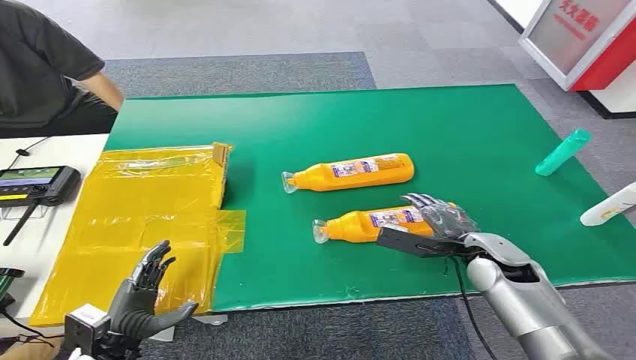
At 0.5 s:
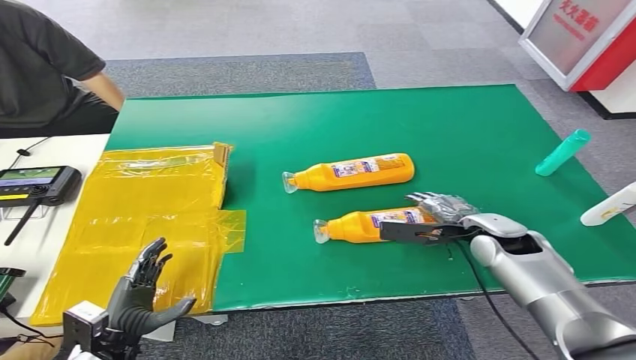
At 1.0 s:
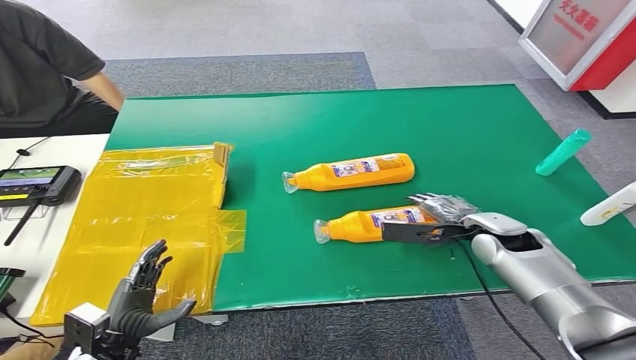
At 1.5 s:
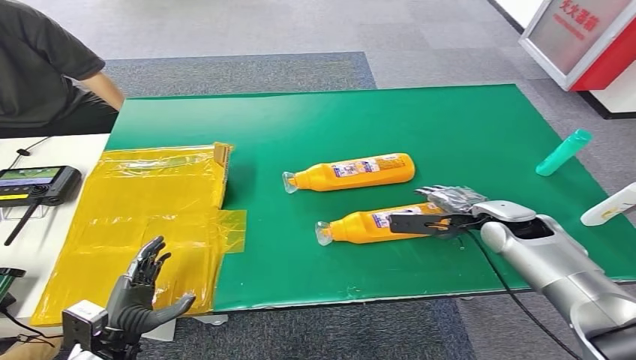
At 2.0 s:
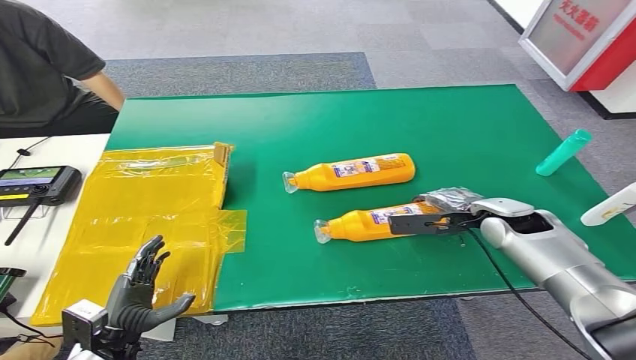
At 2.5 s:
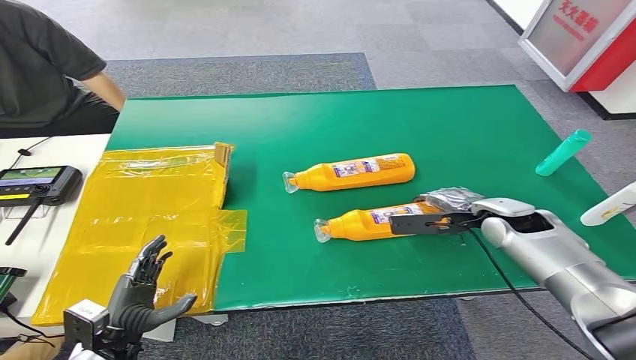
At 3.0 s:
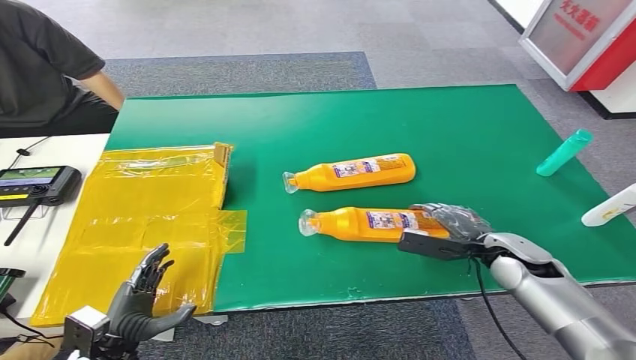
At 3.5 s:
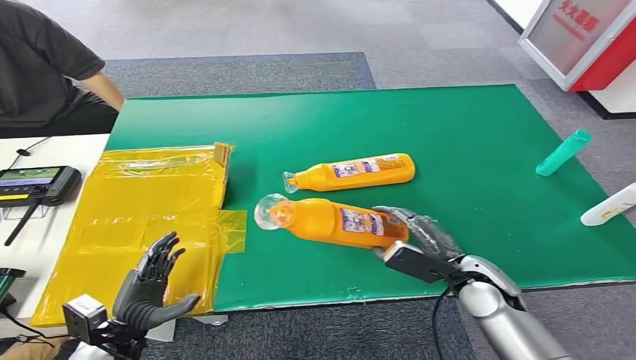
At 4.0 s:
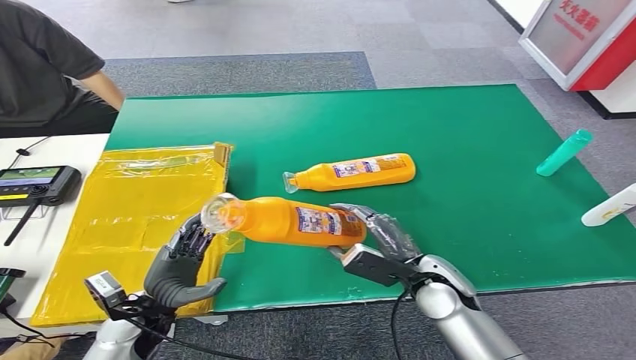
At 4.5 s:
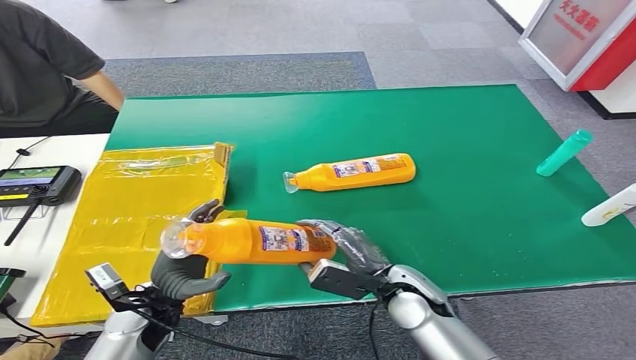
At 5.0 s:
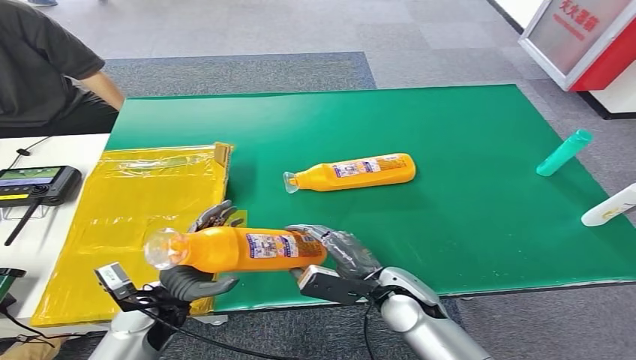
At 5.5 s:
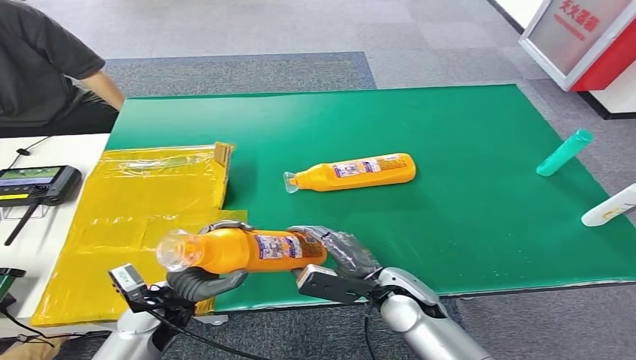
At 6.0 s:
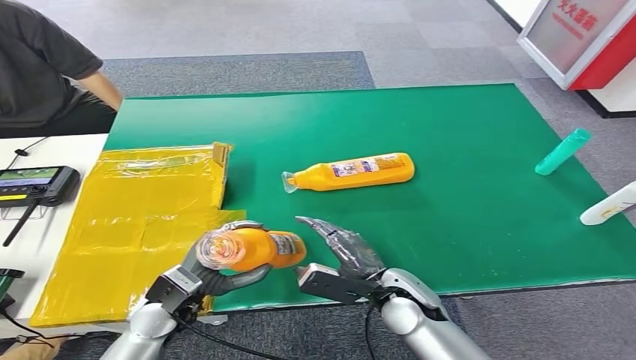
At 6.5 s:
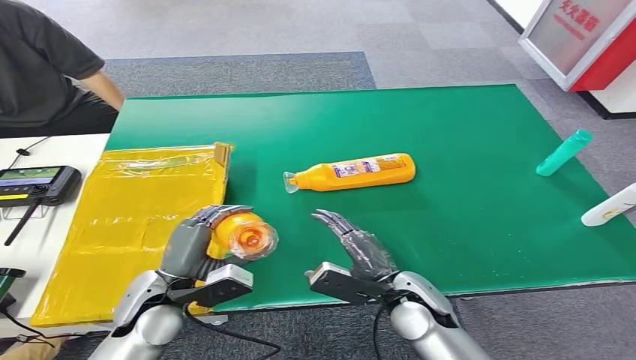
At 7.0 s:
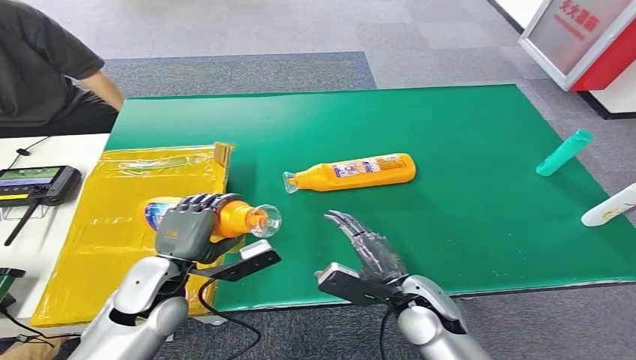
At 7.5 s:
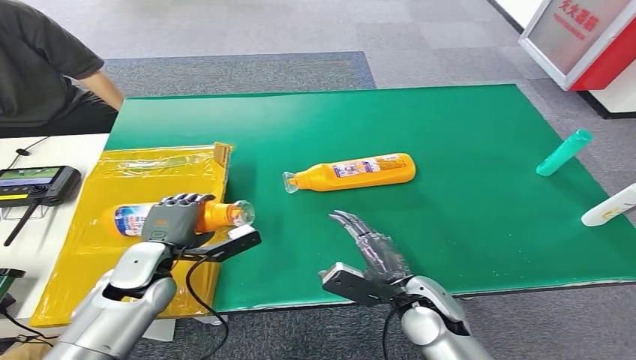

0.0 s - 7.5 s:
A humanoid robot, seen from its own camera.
Step, 0.0 s - 3.5 s: Pick up the bottle from the table.
Step, 5.5 s - 7.0 s: Turn the bottle to the front side.
2.0 s - 4.0 s: The right hand goes about 20 cm to the left and backward; the left hand travels forward by roughly 5 cm.
4.0 s - 5.5 s: The right hand moves roughly 5 cm.
5.5 s - 7.5 s: The left hand heads forward, covering approximately 5 cm.

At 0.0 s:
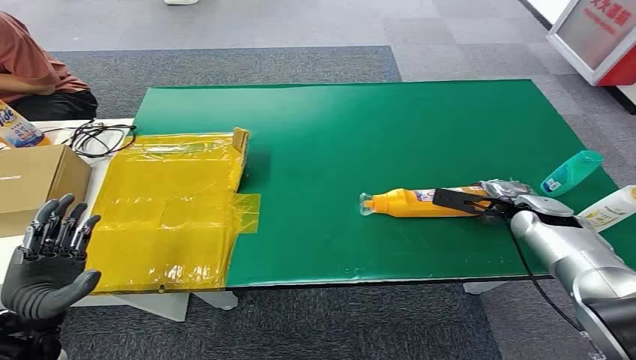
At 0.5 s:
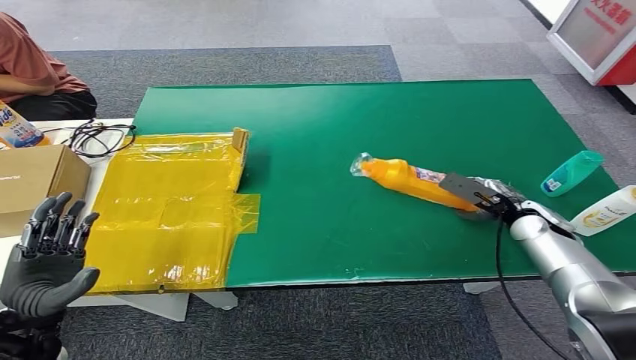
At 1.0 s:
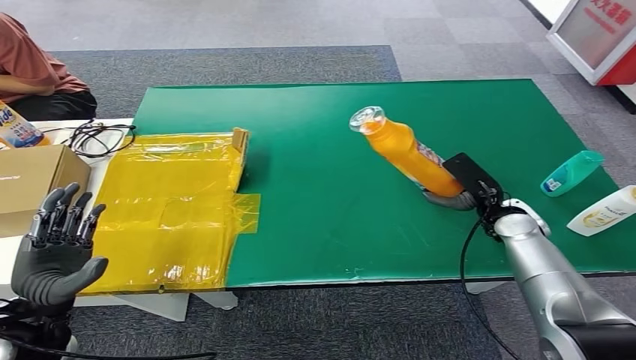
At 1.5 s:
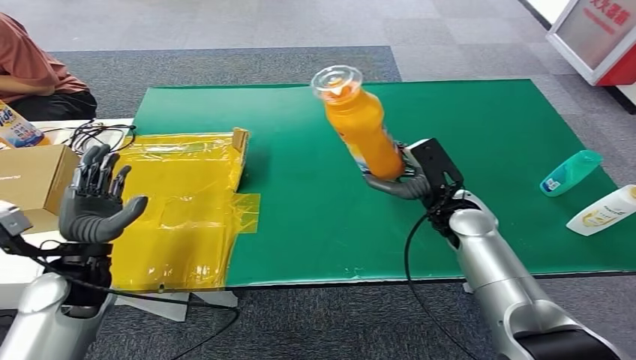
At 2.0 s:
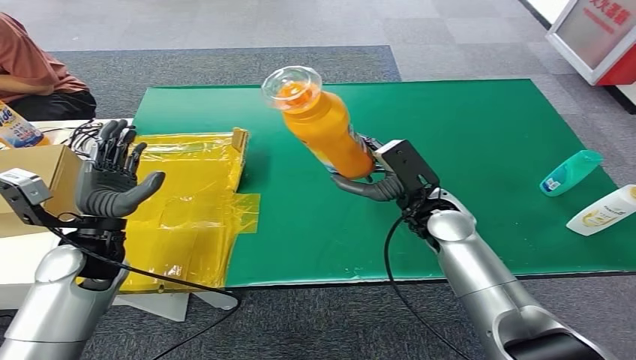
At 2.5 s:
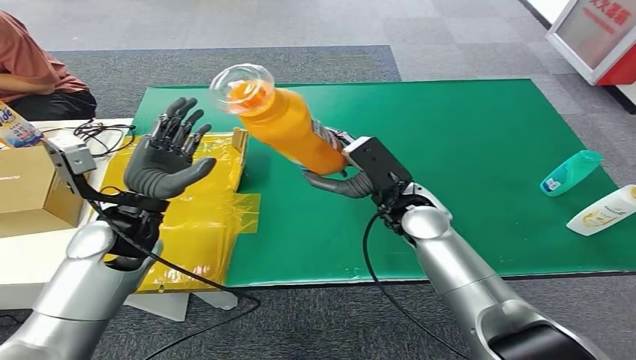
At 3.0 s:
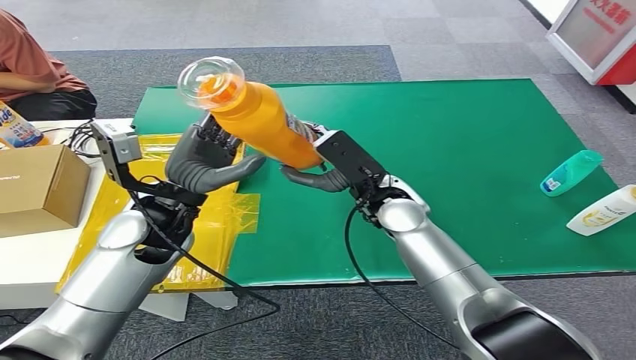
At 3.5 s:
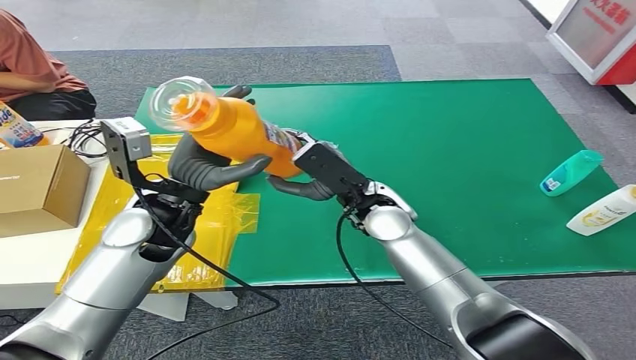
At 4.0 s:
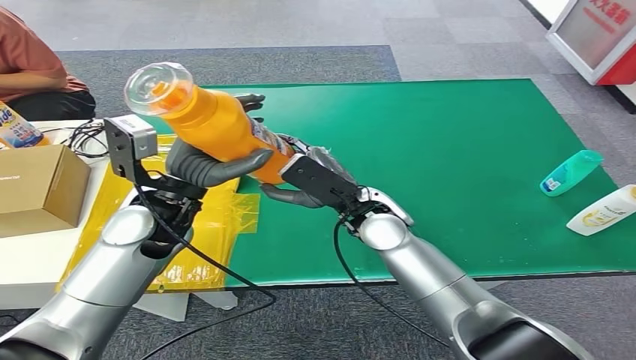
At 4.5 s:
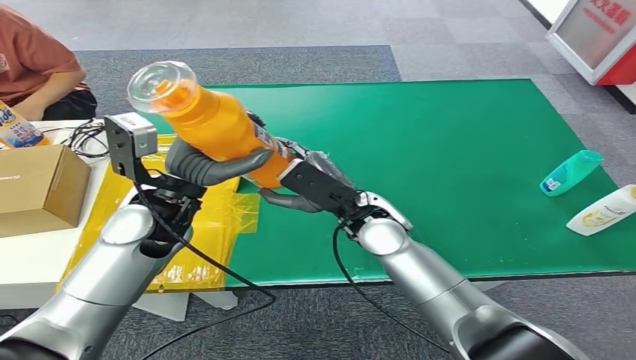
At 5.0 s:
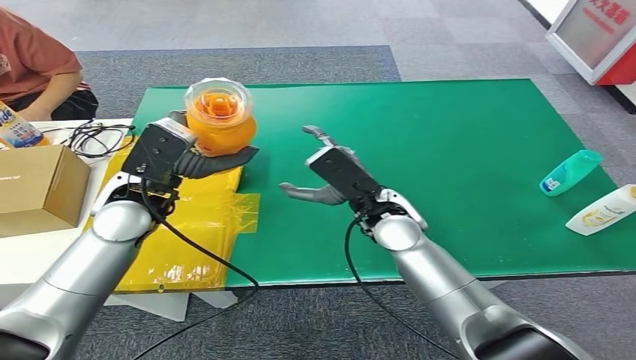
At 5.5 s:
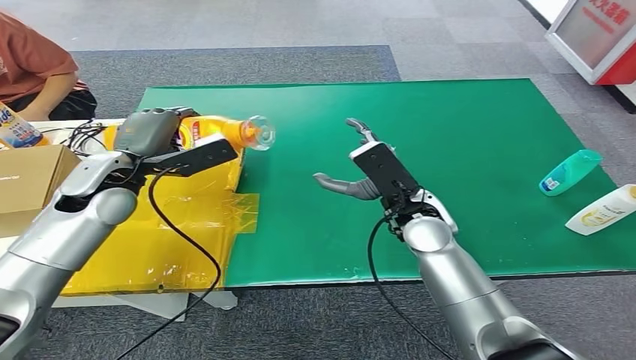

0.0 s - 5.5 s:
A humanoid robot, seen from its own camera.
Step, 0.0 s - 1.5 s: Pick up the bottle from the table.
Step, 2.0 s - 5.5 s: Turn the bottle to the front side.

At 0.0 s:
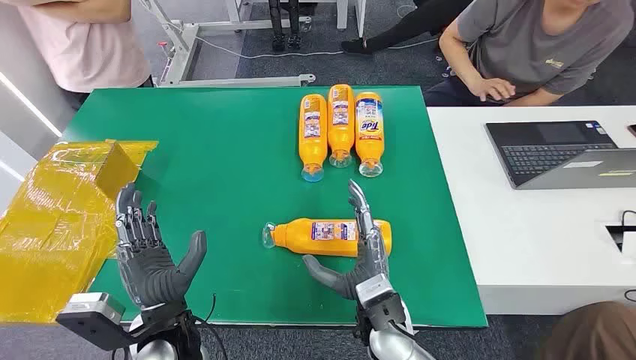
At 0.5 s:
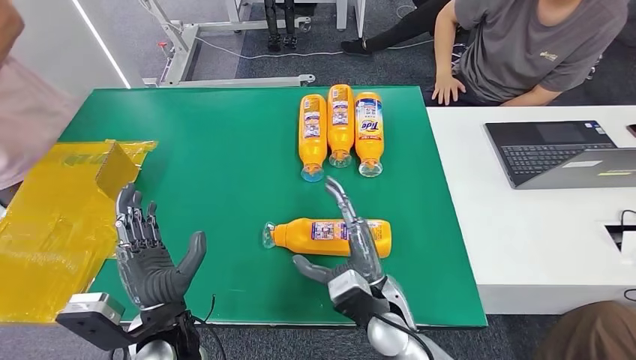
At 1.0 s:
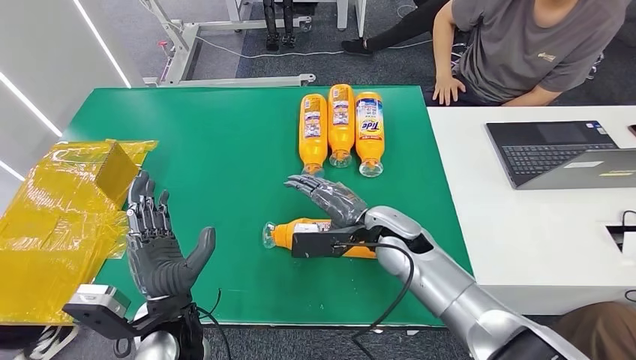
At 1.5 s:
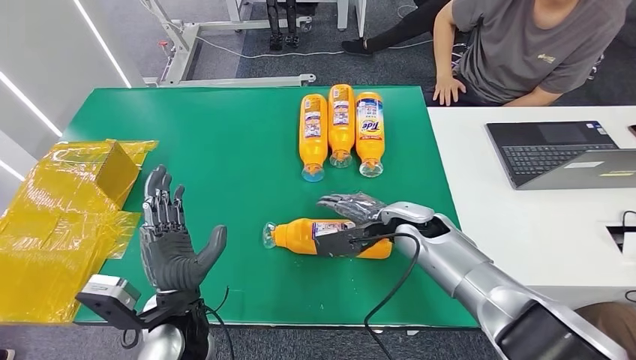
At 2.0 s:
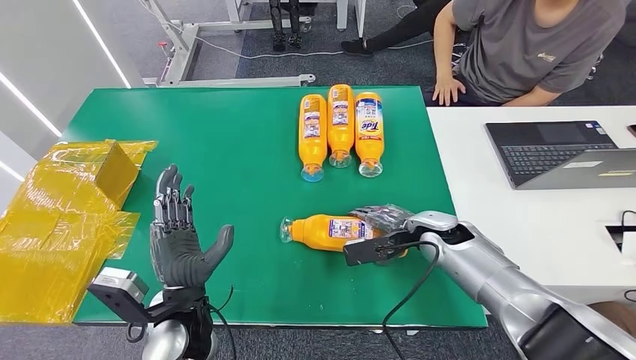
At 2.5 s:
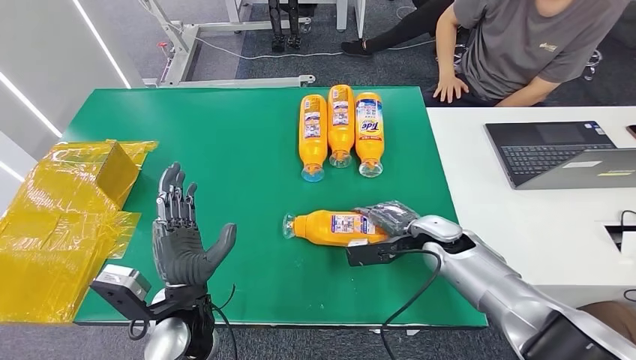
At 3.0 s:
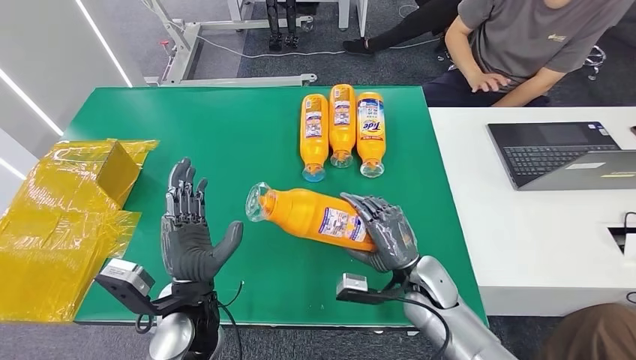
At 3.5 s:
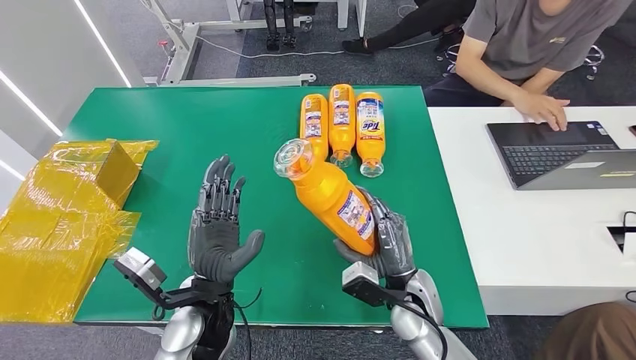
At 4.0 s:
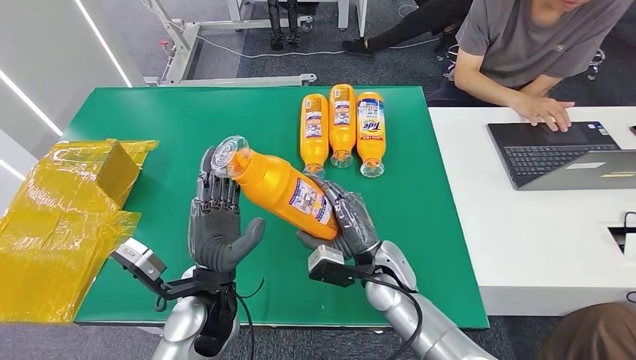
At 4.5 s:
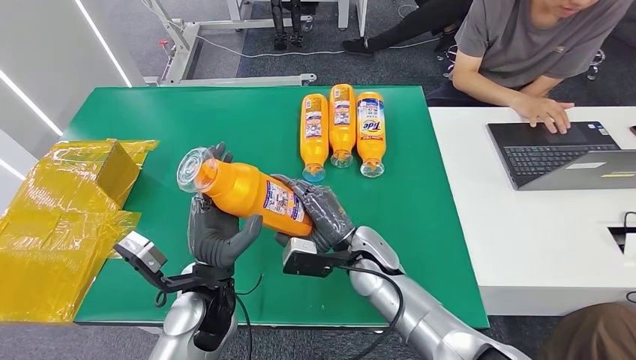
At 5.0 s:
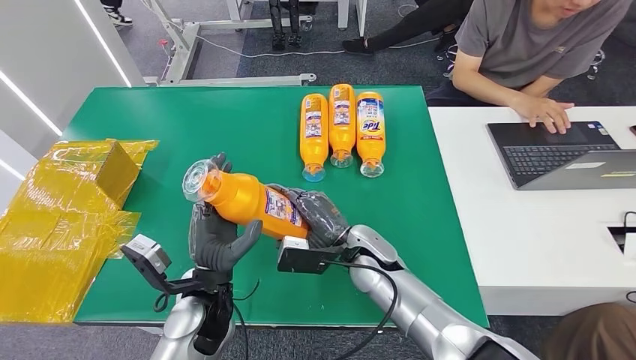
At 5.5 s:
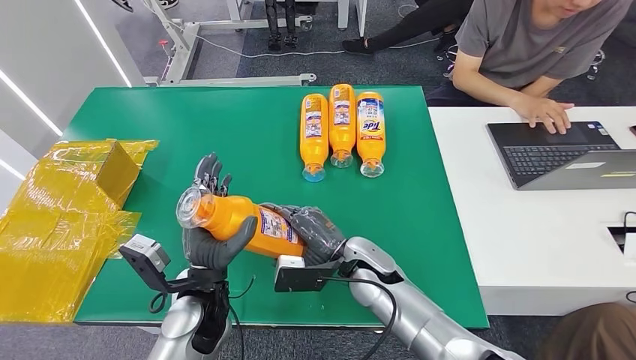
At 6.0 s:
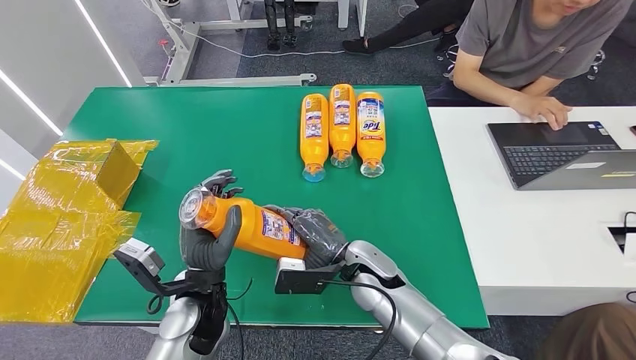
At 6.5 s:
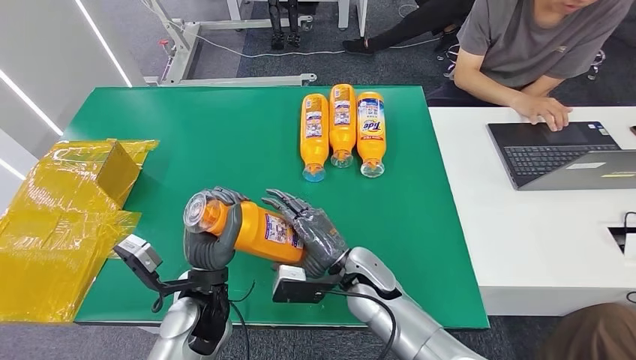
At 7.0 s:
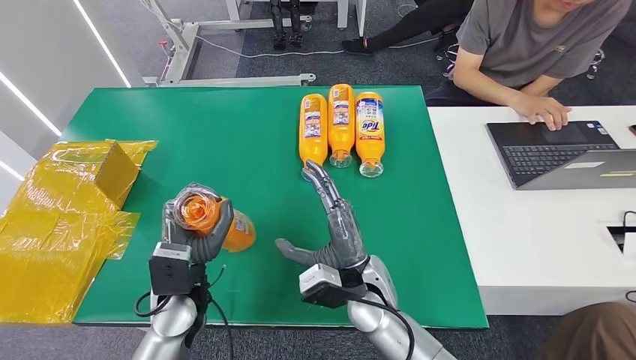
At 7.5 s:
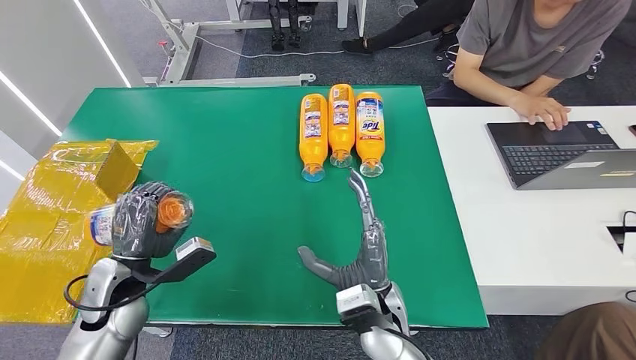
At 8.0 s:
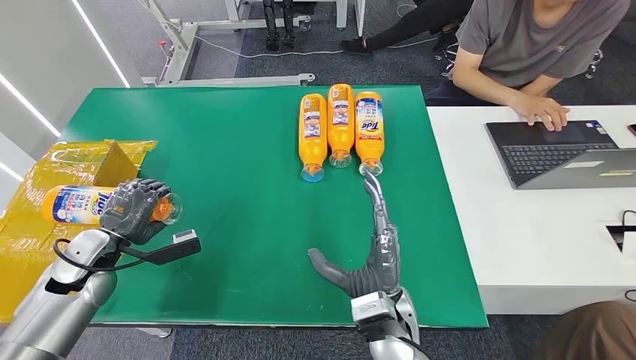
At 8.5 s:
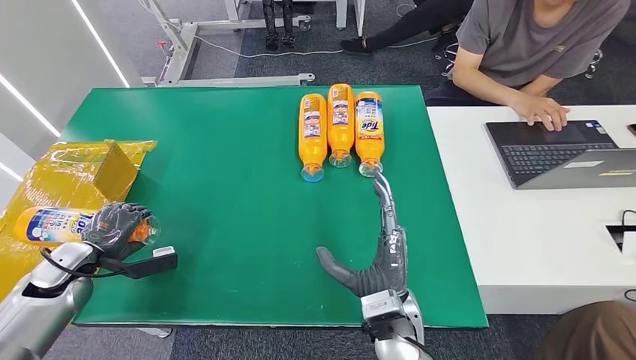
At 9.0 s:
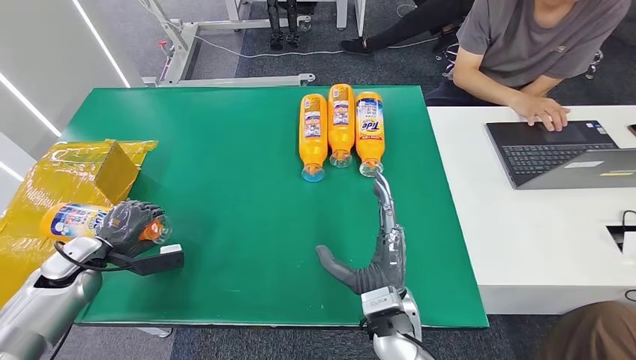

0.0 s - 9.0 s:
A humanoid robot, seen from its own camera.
Step, 0.0 s - 4.0 s: Pick up the bottle from the table.
4.5 s - 7.0 s: The left hand moves to the left, some 5 cm. The right hand shifts approximately 5 cm backward.
7.0 s - 9.0 s: The right hand goes roughly 5 cm backward; the left hand shifts about 25 cm to the left.
